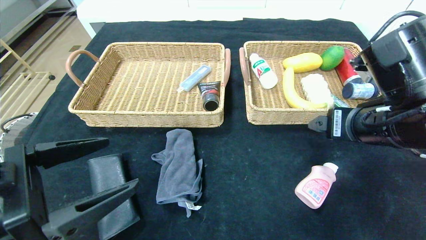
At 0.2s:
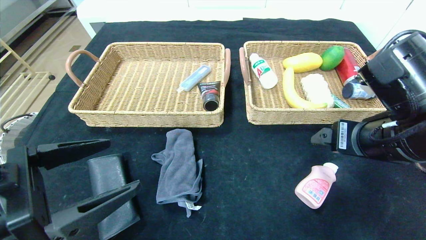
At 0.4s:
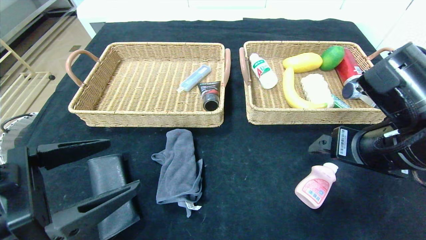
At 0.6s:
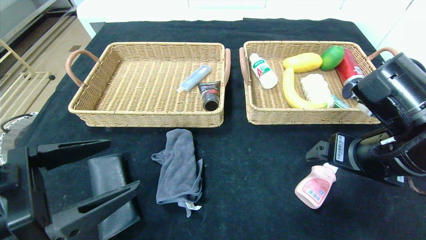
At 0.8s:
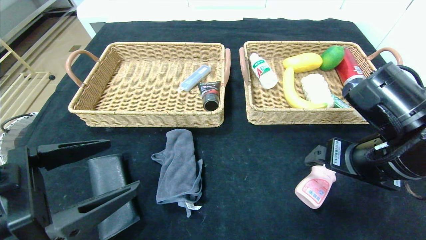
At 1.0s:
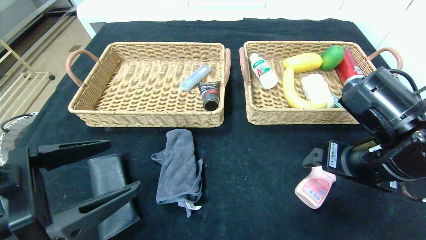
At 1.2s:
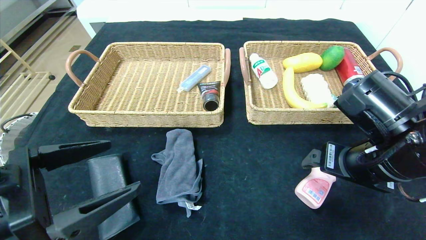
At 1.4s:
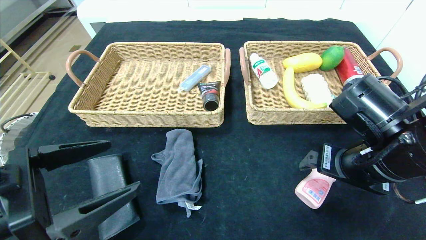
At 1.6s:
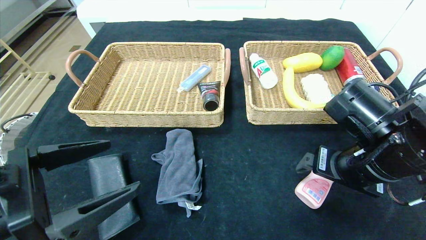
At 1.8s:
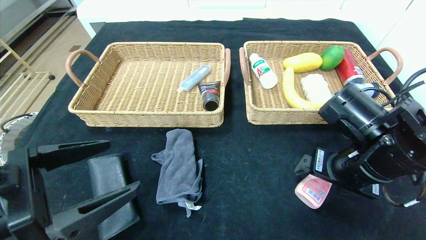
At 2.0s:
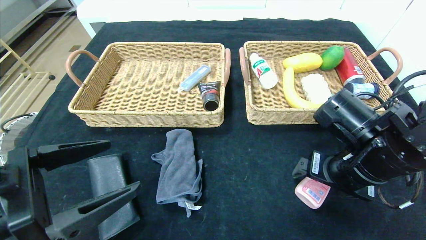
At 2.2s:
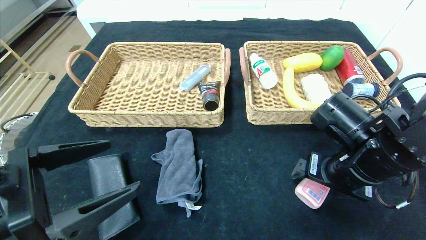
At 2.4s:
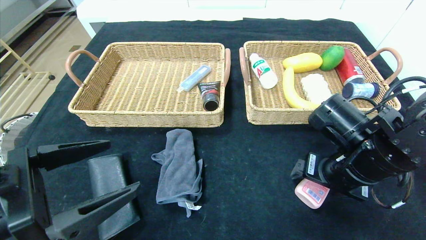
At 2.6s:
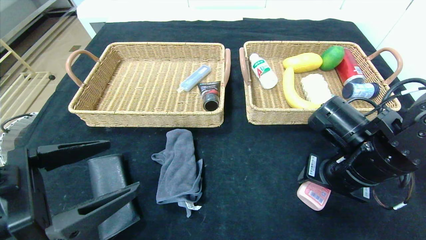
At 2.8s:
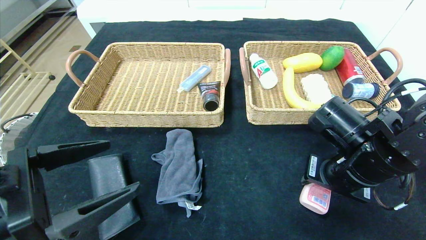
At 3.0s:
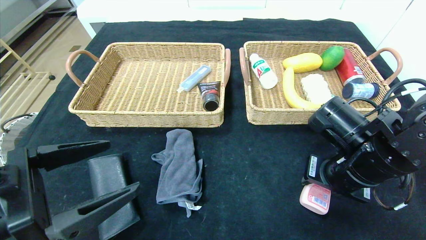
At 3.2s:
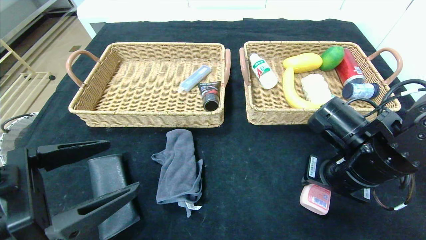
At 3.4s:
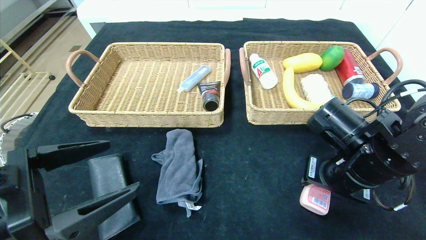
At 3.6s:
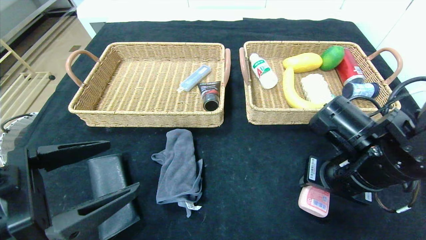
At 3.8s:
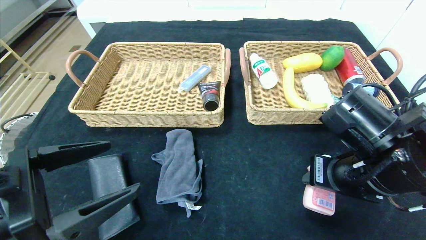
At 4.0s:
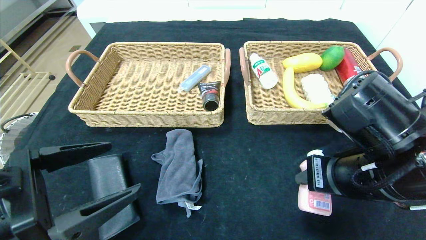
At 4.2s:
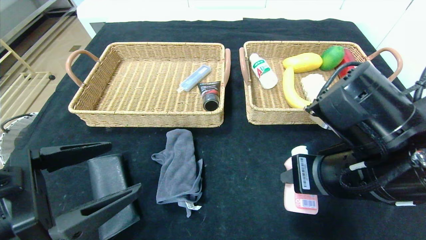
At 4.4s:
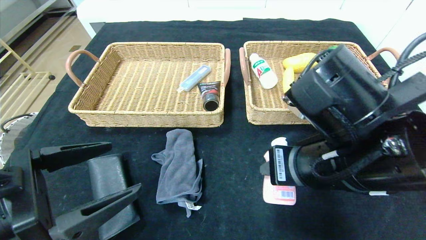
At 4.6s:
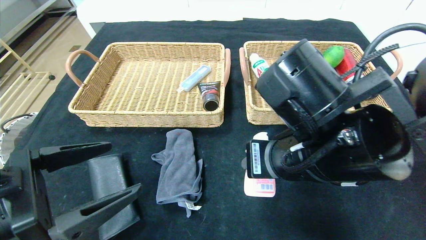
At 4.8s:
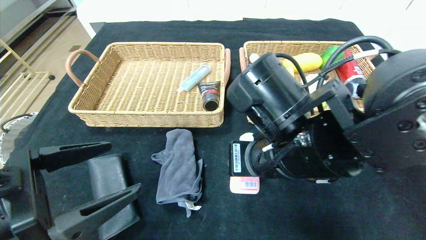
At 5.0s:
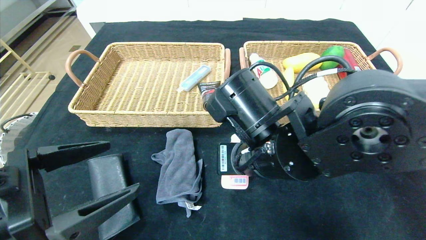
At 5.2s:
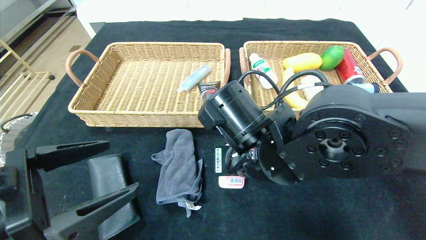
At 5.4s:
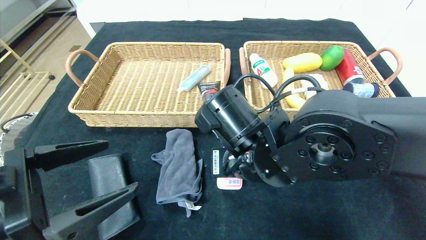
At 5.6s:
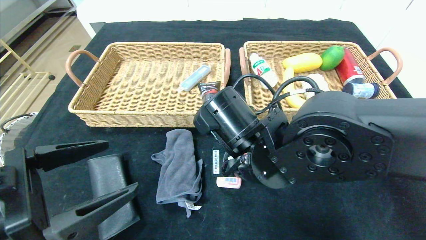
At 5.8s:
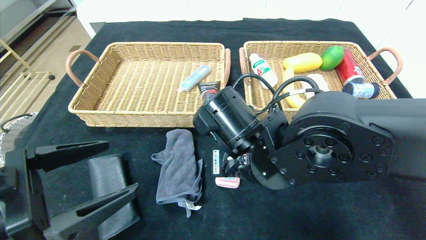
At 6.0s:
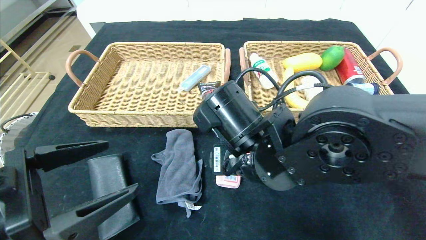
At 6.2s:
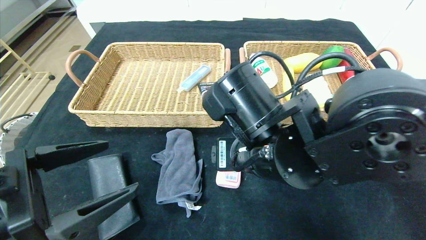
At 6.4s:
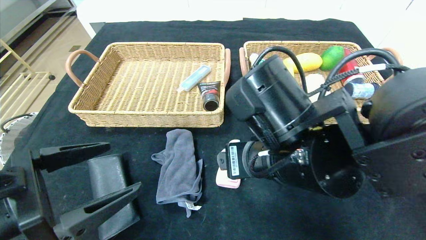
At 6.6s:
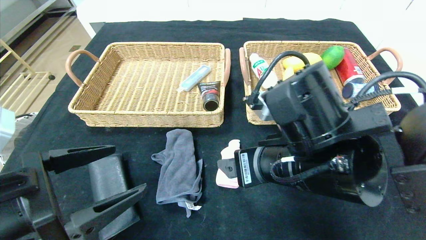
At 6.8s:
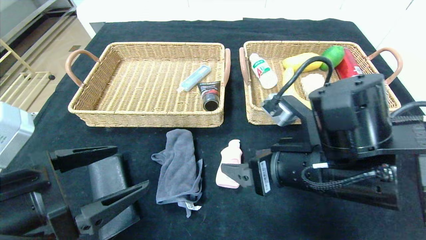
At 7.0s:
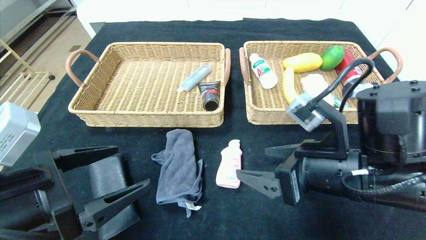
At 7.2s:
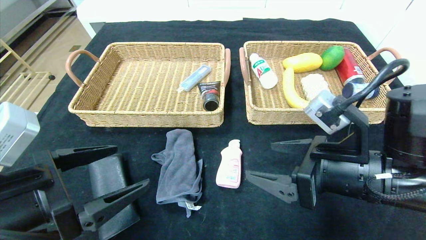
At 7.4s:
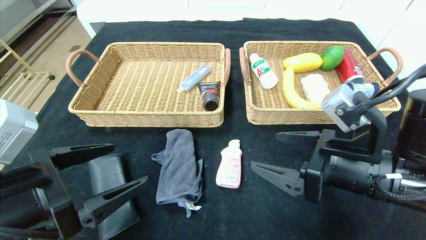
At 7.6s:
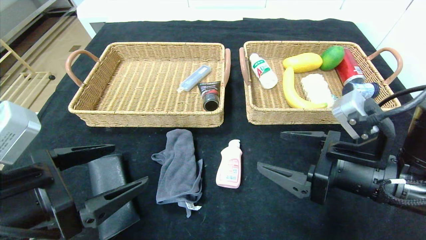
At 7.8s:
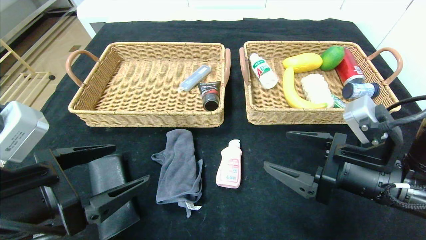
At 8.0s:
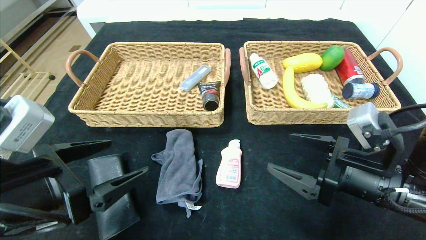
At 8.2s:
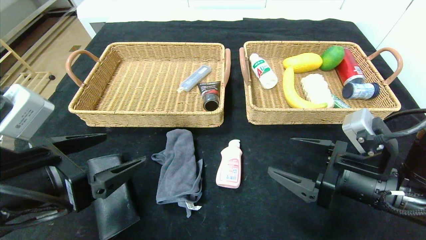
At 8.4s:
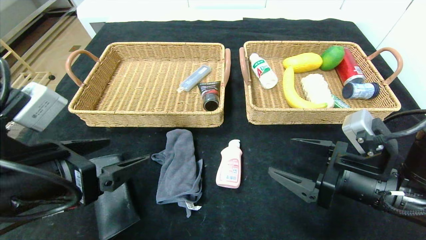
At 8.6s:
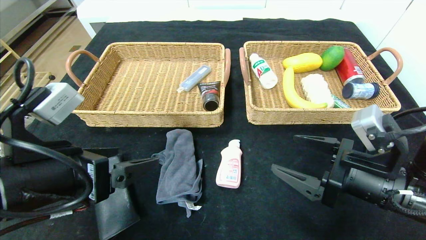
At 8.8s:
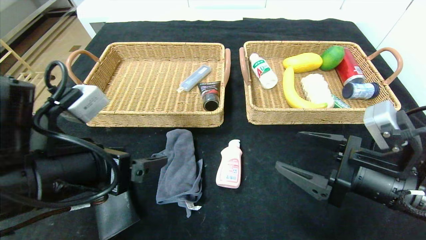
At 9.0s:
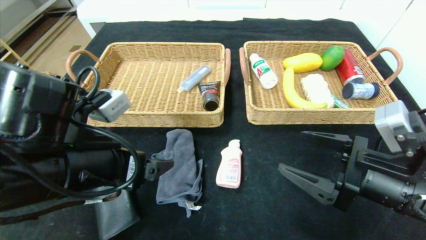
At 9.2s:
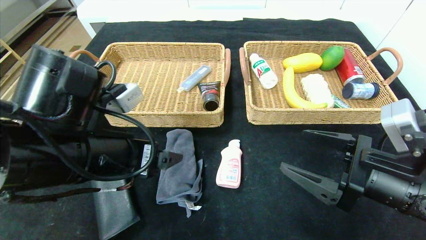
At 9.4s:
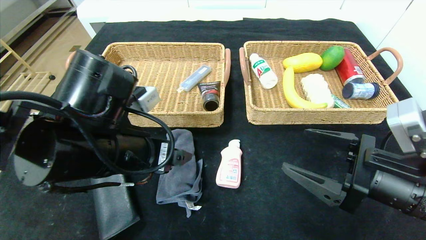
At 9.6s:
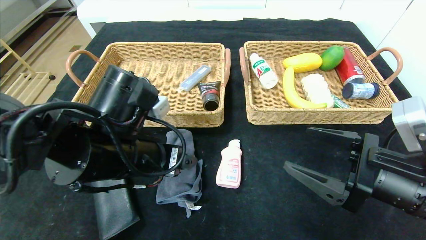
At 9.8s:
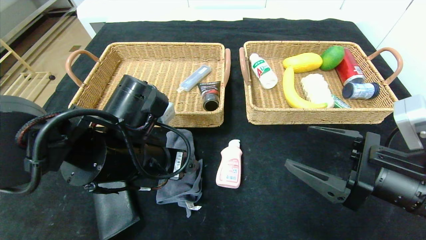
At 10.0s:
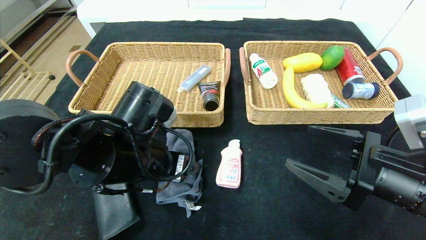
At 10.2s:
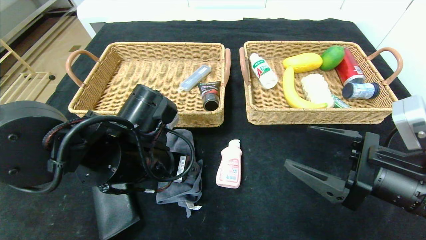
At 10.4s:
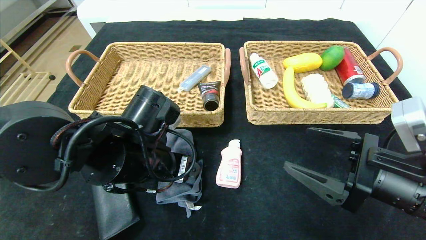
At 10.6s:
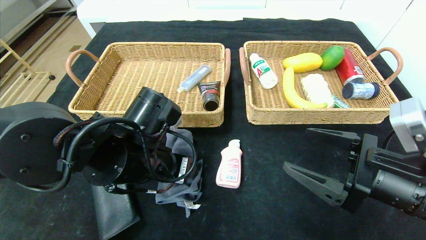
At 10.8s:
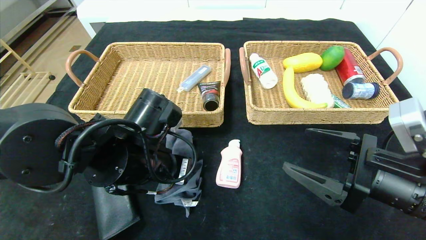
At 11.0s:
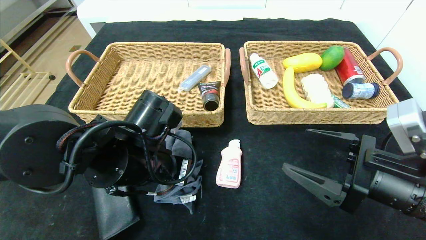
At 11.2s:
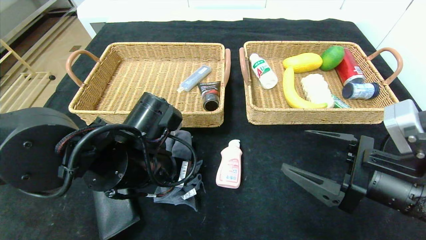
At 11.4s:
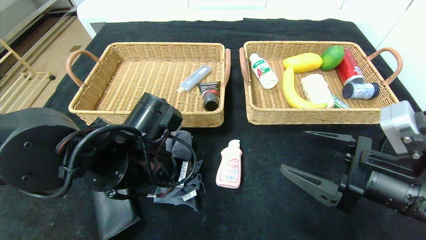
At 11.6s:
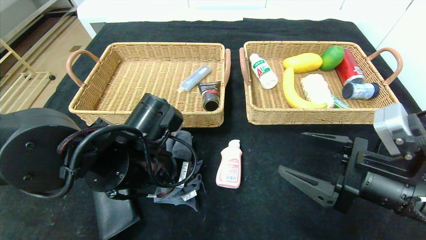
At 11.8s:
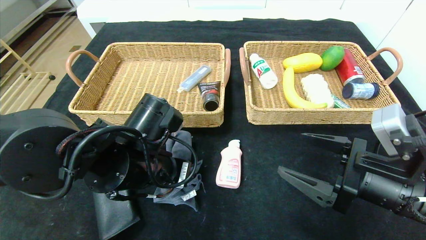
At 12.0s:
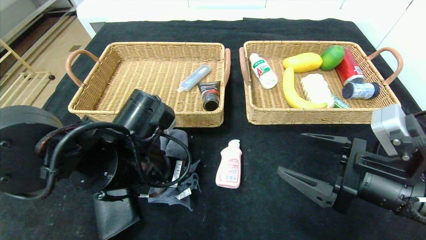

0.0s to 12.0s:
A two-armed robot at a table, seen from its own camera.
Step, 0.2s to 7.4s: Place the detergent in the center of the table.
0.0s to 1.6s: The right gripper travels downward by about 5 cm.
1.6s to 3.0s: The right gripper closes its fingers.
3.0s to 4.4s: The right gripper goes about 10 cm to the left, upward and backward.
4.4s to 6.0s: The right gripper travels to the left by about 10 cm, and opens up.
6.0s to 7.6s: The right gripper shifts about 15 cm to the right.
7.6s to 9.0s: The left gripper heads forward and to the right, covering some 10 cm.
9.0s to 10.4s: The left gripper is displaced to the right and forward by about 10 cm.
10.4s to 12.0s: The left gripper closes up.

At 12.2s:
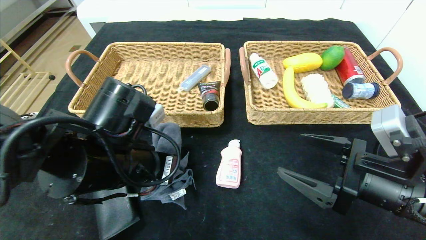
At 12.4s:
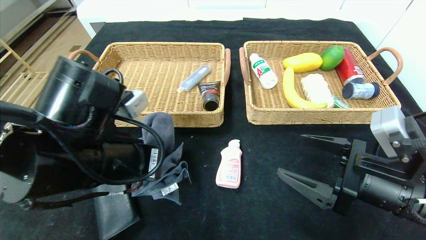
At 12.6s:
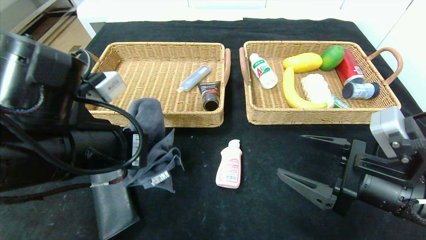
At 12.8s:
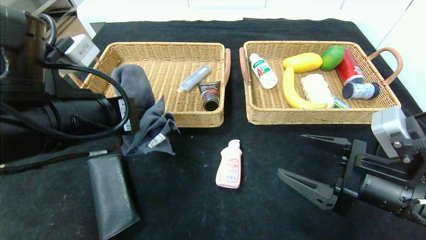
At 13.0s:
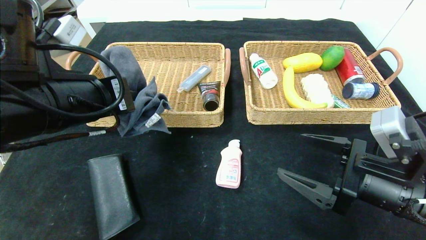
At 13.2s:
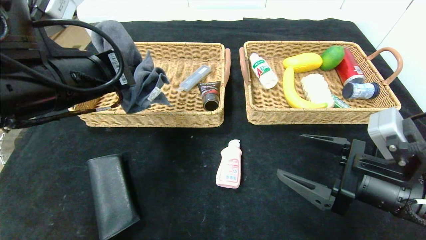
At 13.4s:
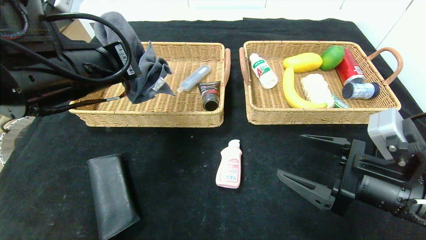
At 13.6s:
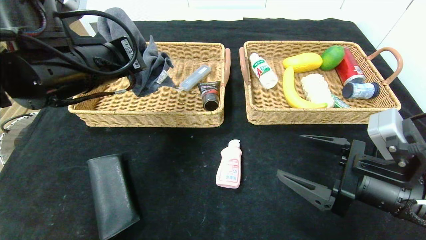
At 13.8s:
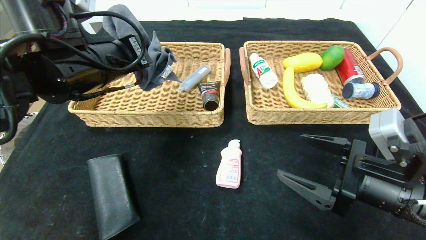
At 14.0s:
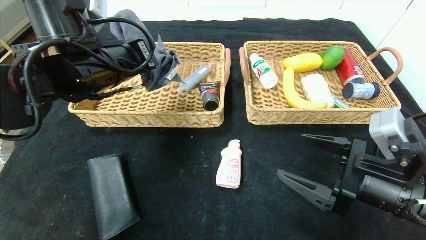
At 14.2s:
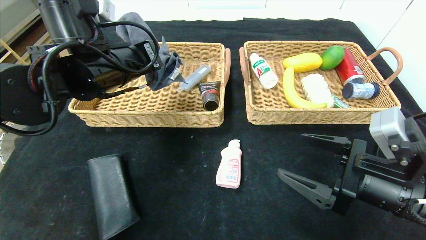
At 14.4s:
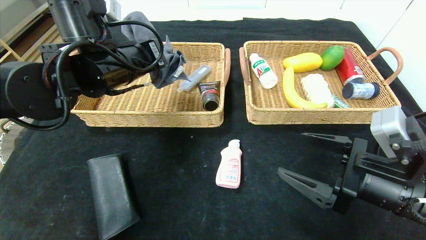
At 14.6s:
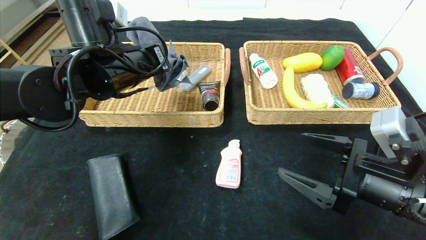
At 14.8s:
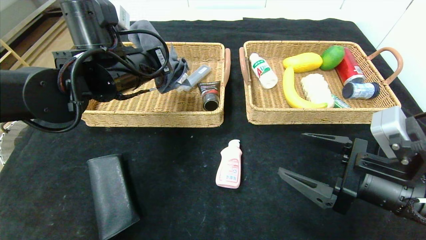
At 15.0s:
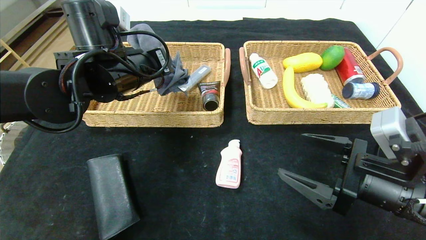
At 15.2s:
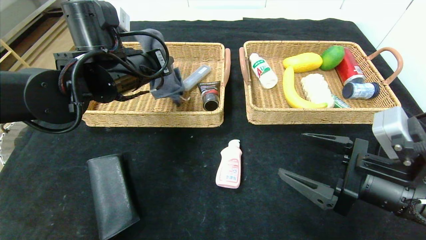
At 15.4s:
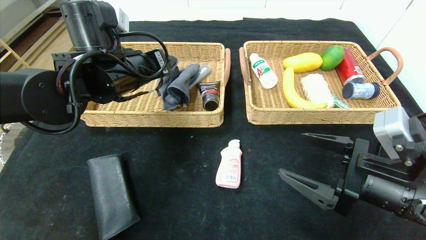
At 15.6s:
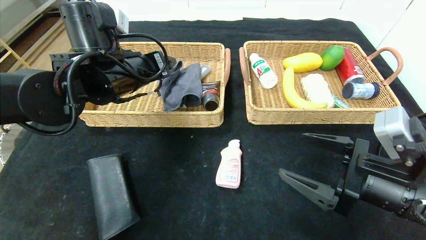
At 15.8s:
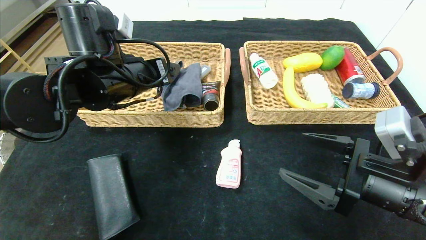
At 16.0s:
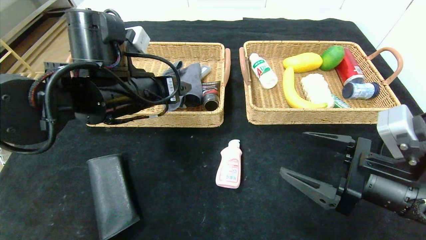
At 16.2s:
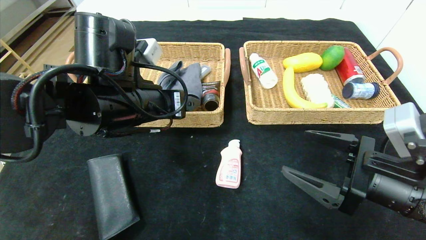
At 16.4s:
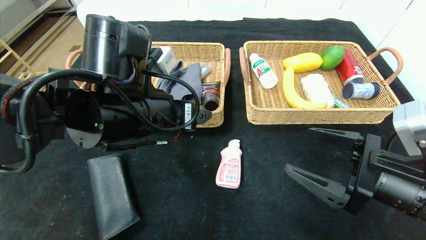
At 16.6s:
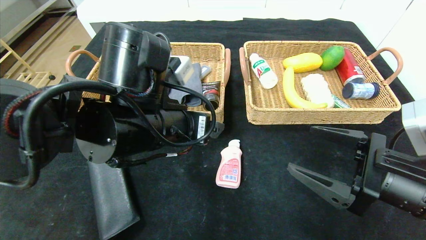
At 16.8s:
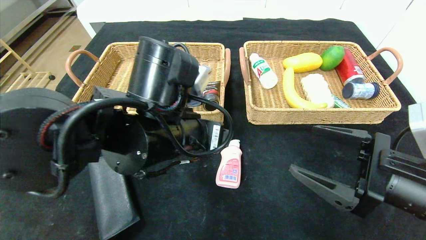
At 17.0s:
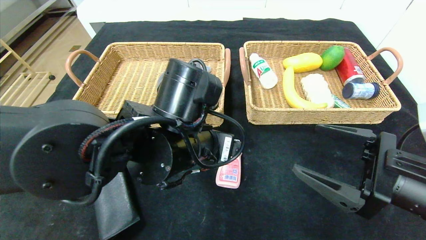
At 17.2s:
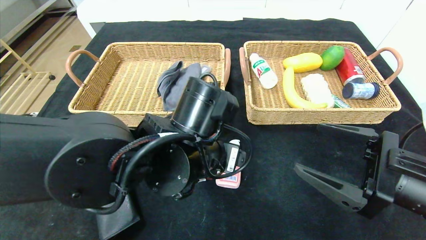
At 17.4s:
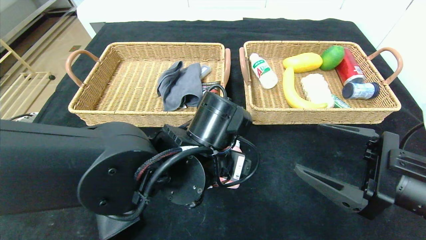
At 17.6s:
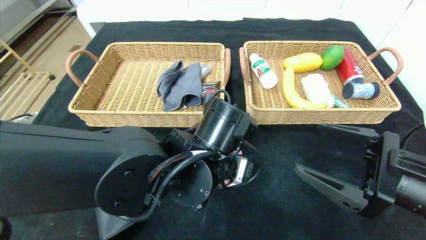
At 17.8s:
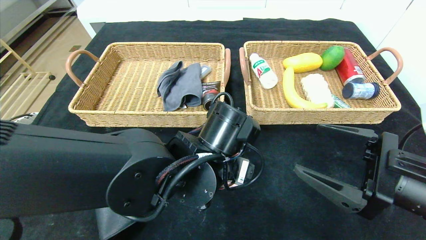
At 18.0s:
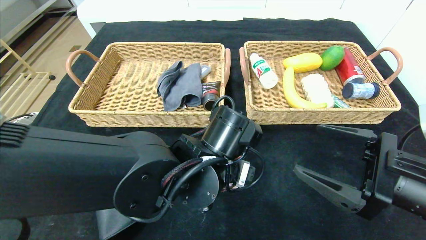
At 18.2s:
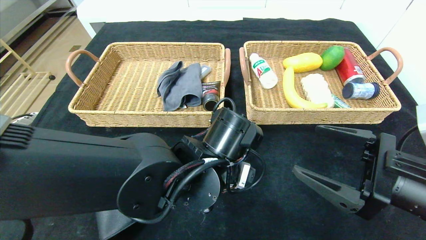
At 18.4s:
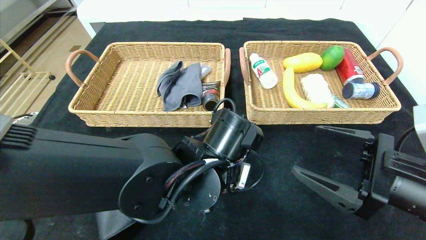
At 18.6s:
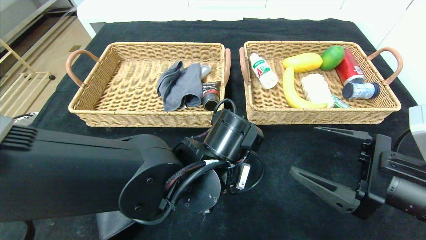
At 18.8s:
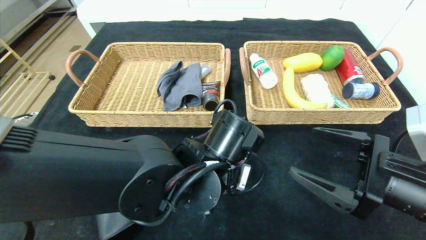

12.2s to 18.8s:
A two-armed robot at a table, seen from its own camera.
Step, 12.2s to 16.6s: Pick up the gray towel and put it in the left basket.
12.2s to 13.8s: The left gripper heads upward and forward, covering roughly 15 cm.
13.8s to 15.4s: The left gripper changes place by about 5 cm, and opens its fingers.
15.4s to 17.2s: The left gripper heads to the right, backward and downward, covering approximately 20 cm.
17.2s to 18.8s: The left gripper closes up.
